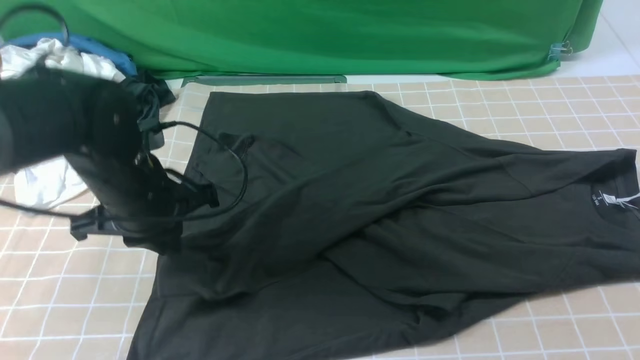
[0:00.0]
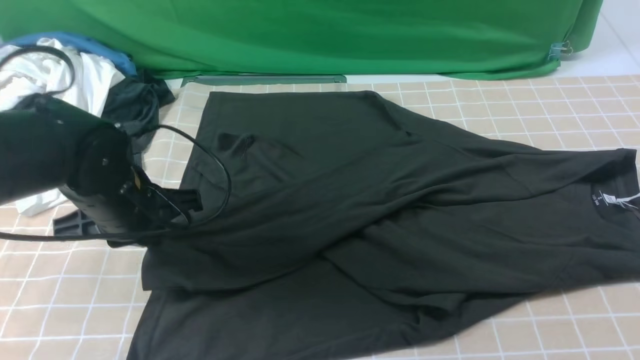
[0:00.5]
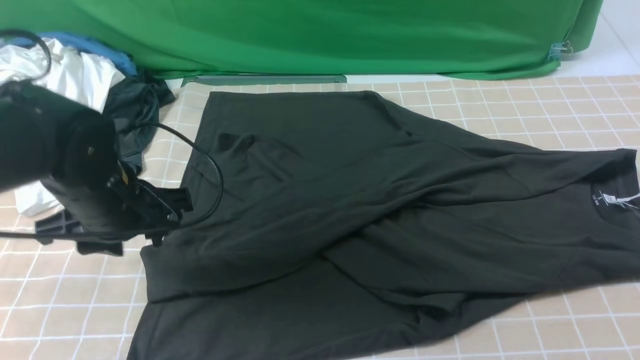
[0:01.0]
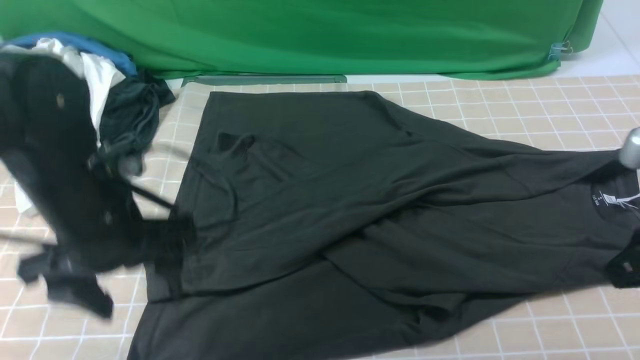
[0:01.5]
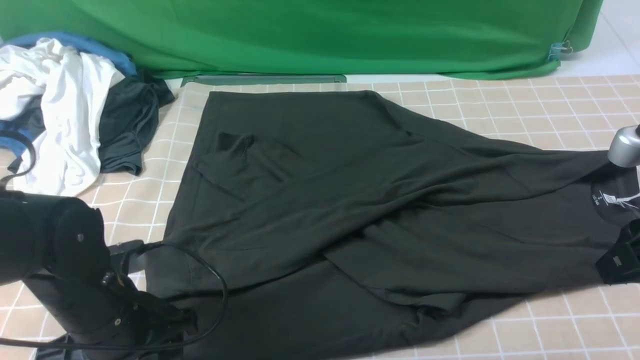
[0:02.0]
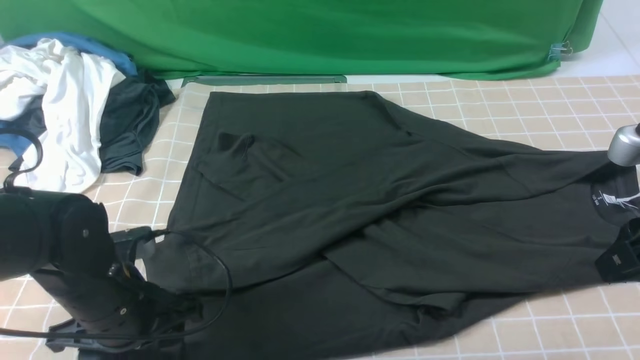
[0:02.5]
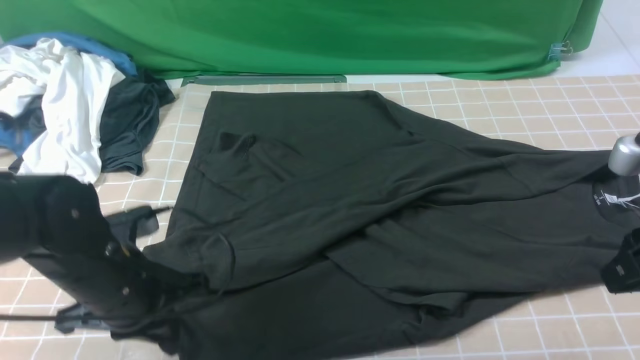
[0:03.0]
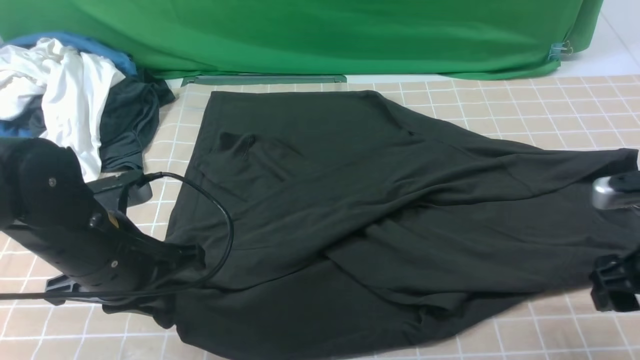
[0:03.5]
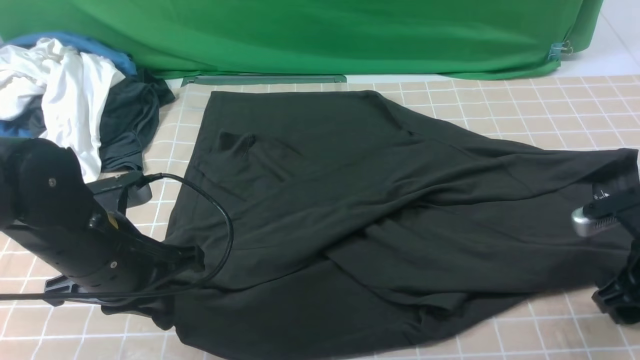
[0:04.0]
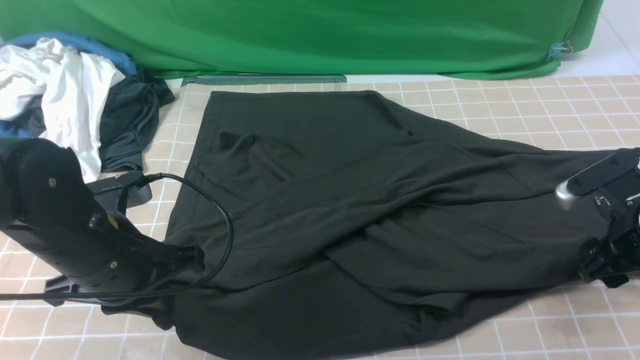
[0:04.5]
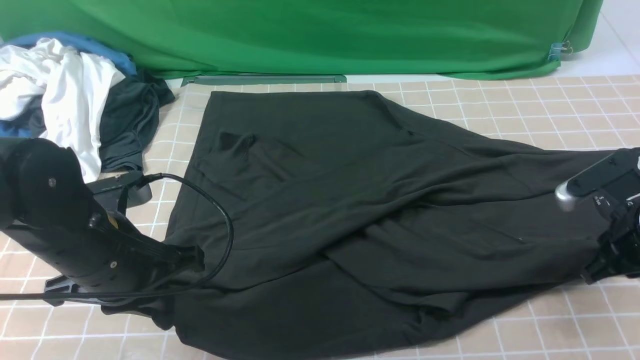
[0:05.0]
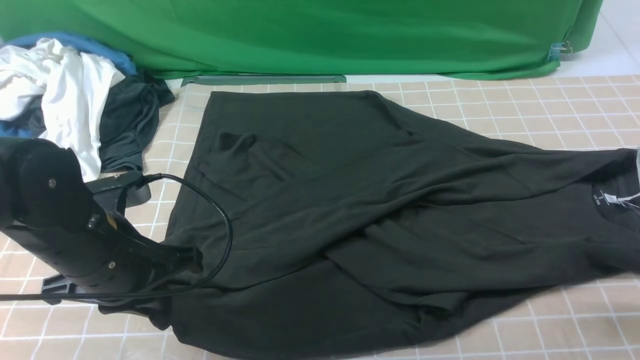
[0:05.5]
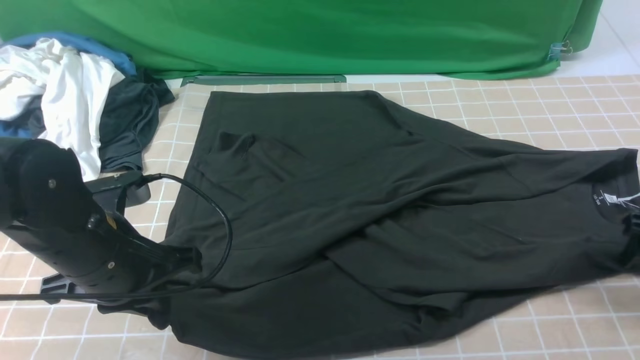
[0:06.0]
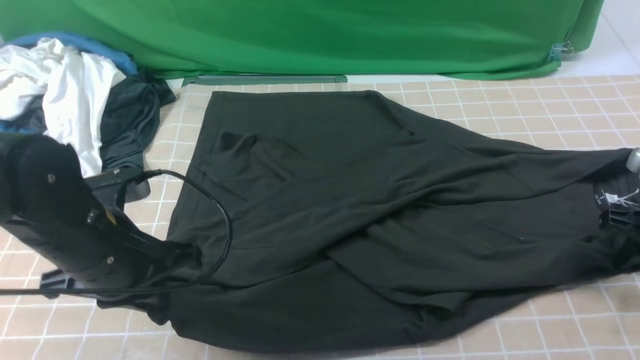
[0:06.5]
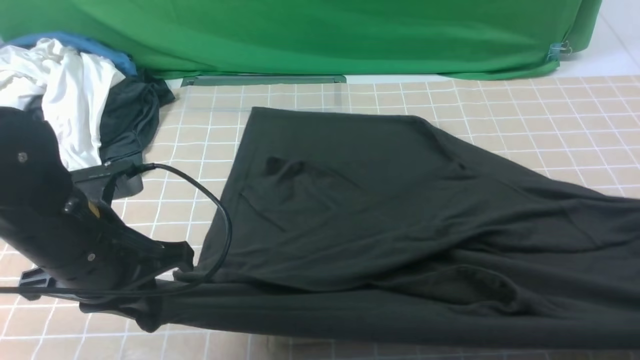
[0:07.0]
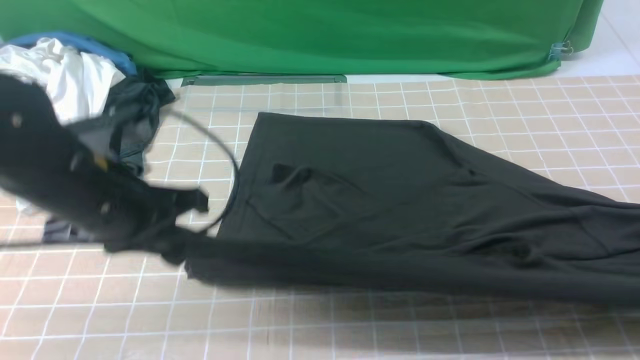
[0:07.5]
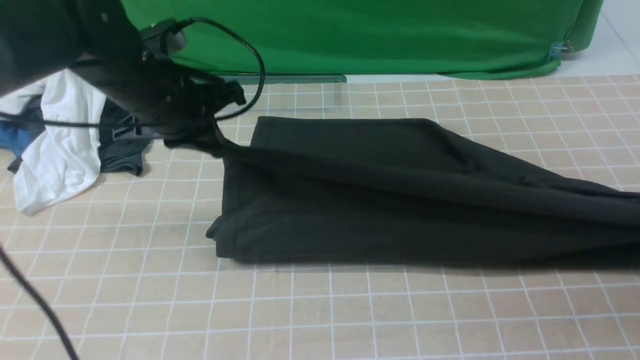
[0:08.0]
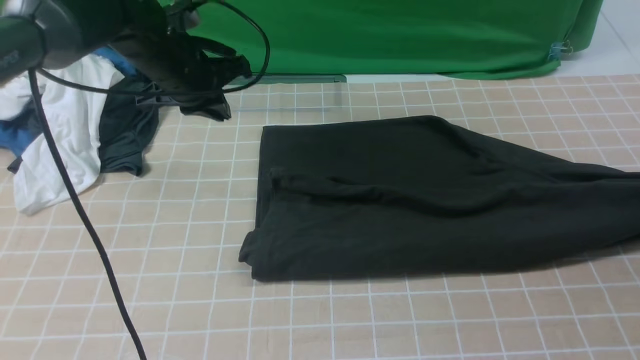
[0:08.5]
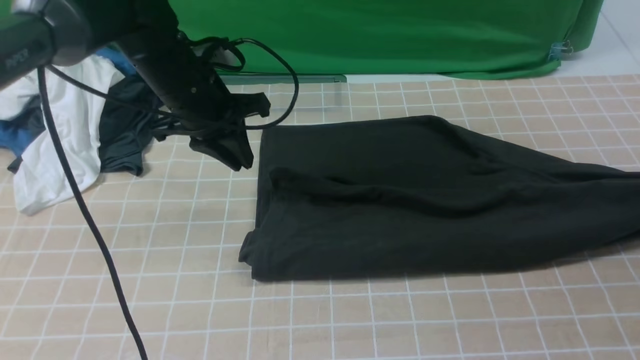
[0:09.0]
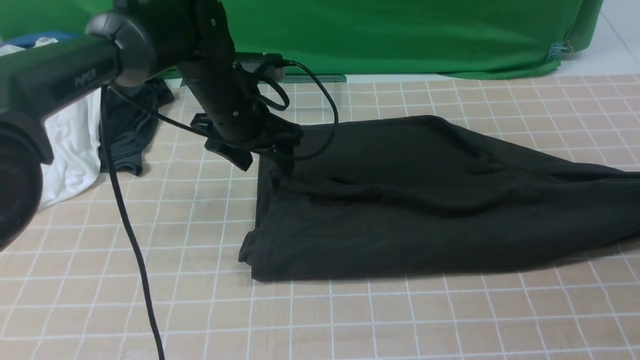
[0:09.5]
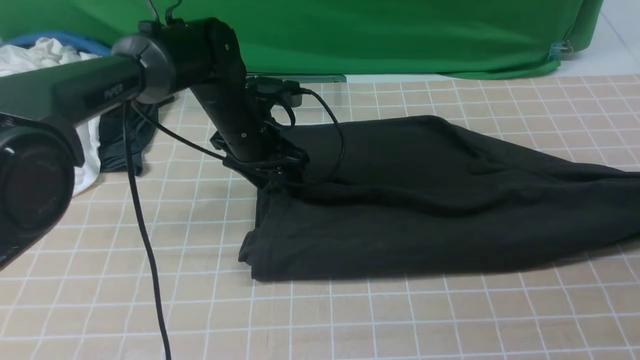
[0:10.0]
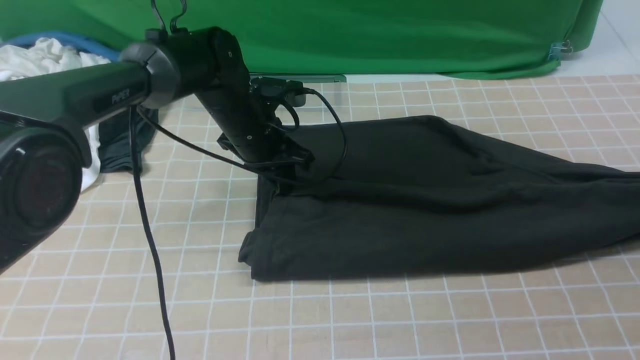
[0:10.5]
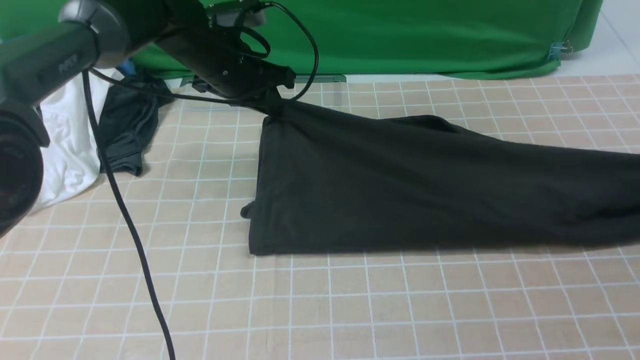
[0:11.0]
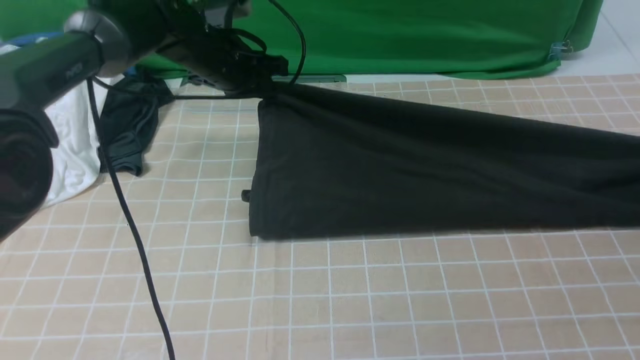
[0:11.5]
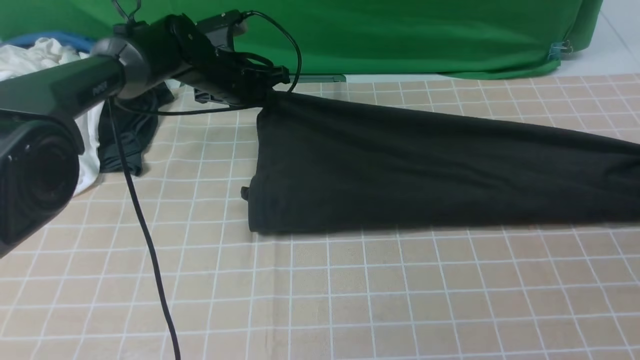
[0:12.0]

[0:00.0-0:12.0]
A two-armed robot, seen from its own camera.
Step, 0:01.0 to 0:06.0: use both arms simultaneously to clamp the lower edge of the clothing fabric.
0:00.0 to 0:02.0: The right gripper is displaced forward and downward by some 10 cm, and opens; the left gripper heads backward, covering approximately 10 cm, and opens its fingers.
0:02.0 to 0:04.0: The right gripper is displaced downward and forward by approximately 15 cm, and opens. The left gripper goes approximately 5 cm upward, and closes its fingers.
0:04.0 to 0:06.0: The right gripper goes approximately 5 cm to the right, and closes, then reopens.
0:06.0 to 0:08.0: The right gripper travels to the right and upward by about 10 cm, and closes up; the left gripper heads forward, covering about 15 cm.
0:08.0 to 0:10.0: The left gripper is displaced downward, to the right and forward by some 15 cm, and opens its fingers; the right gripper goes about 5 cm forward.
0:10.0 to 0:12.0: The left gripper shifts roughly 10 cm forward, and closes up. Meanwhile the right gripper travels downward by roughly 5 cm.

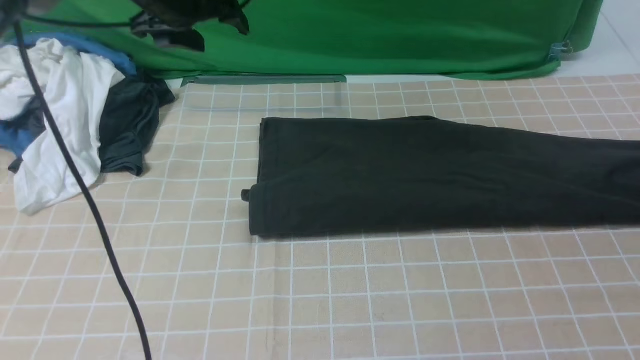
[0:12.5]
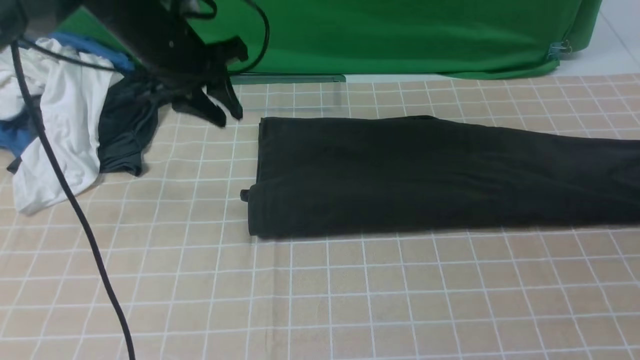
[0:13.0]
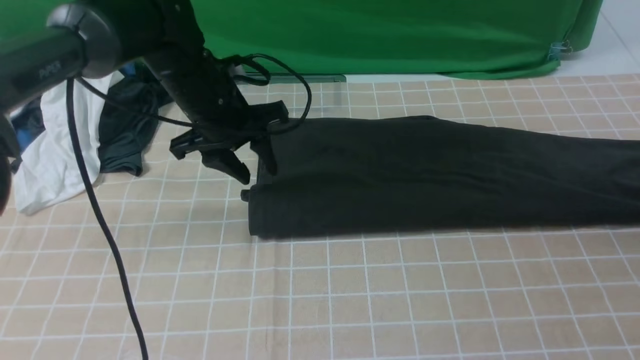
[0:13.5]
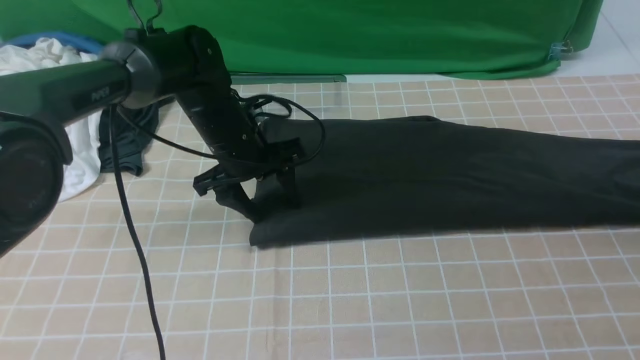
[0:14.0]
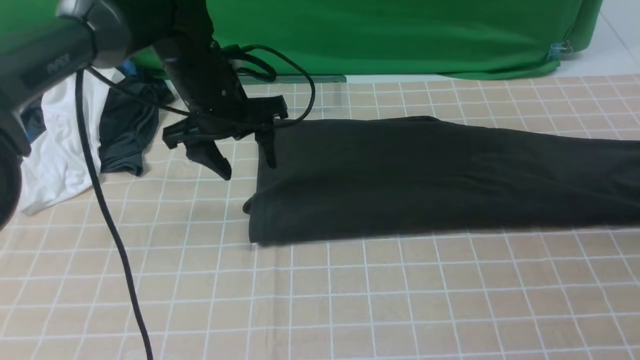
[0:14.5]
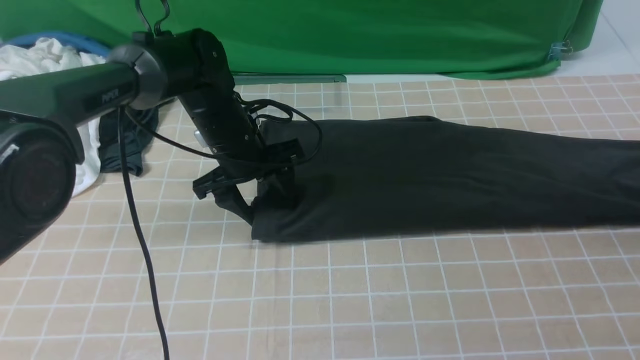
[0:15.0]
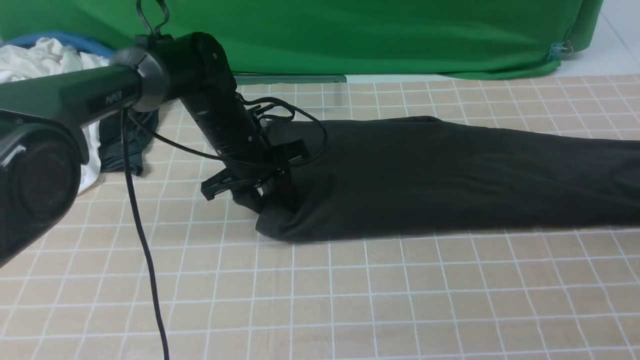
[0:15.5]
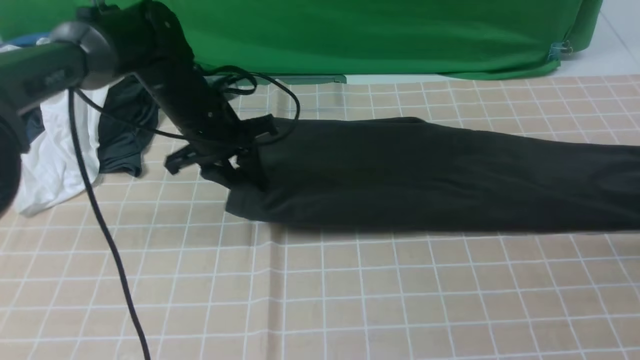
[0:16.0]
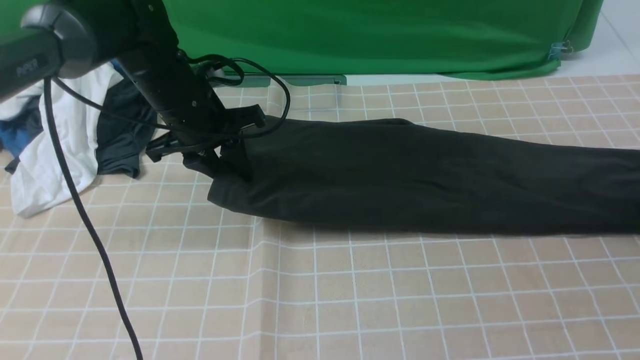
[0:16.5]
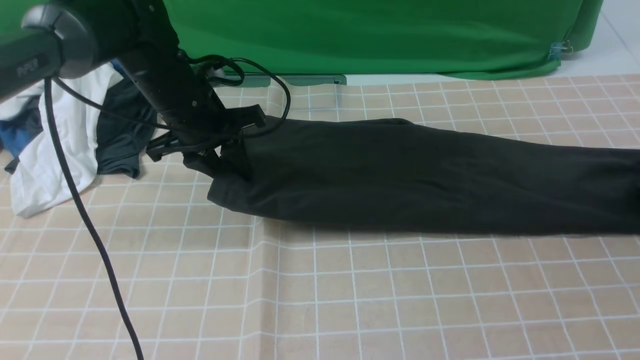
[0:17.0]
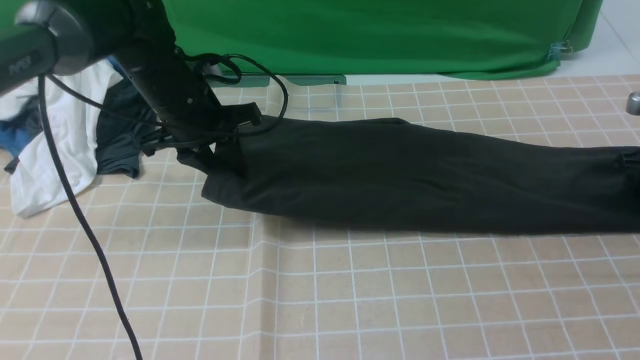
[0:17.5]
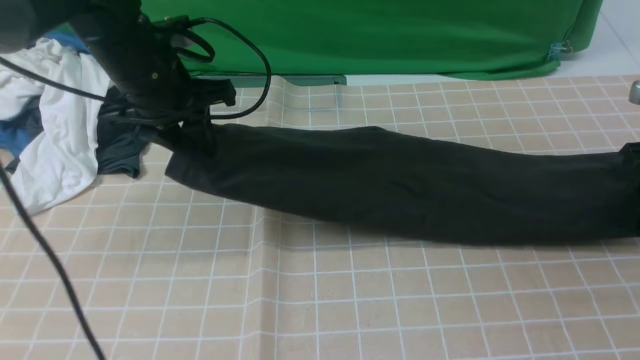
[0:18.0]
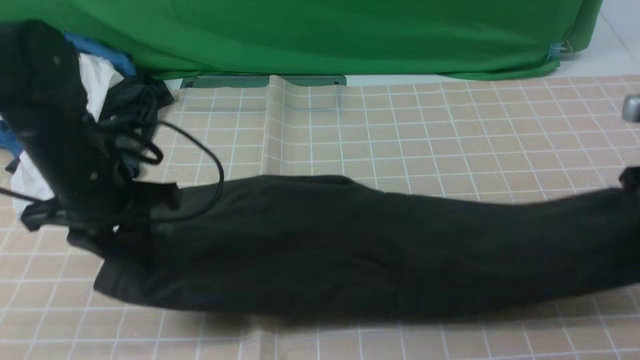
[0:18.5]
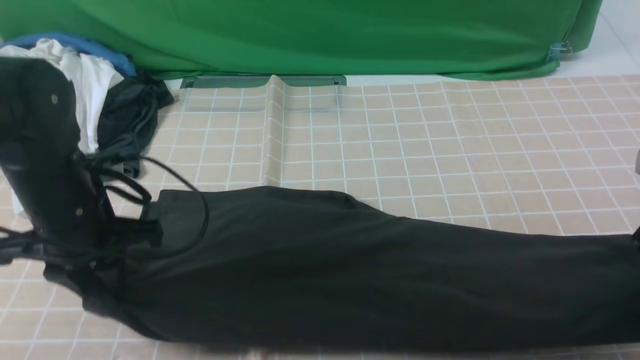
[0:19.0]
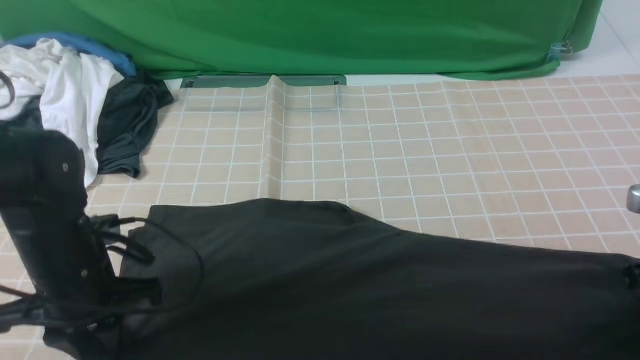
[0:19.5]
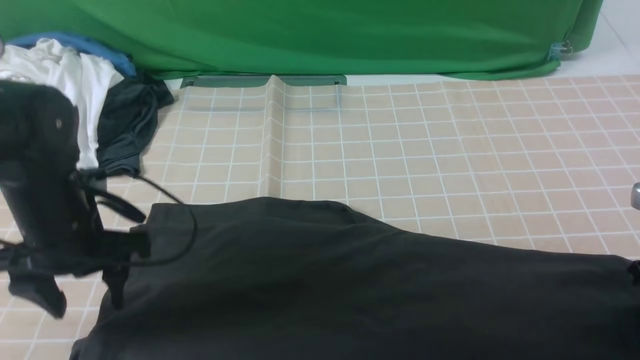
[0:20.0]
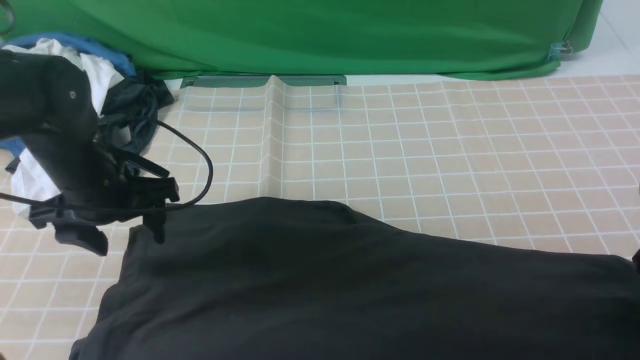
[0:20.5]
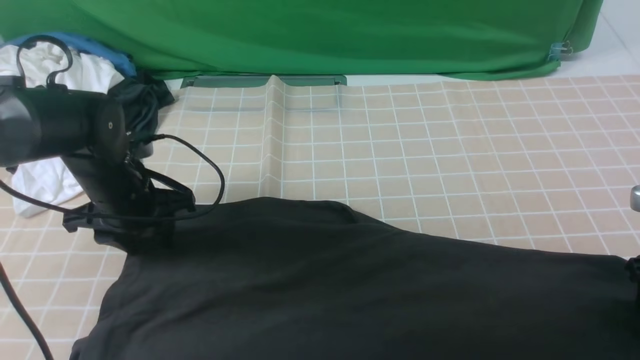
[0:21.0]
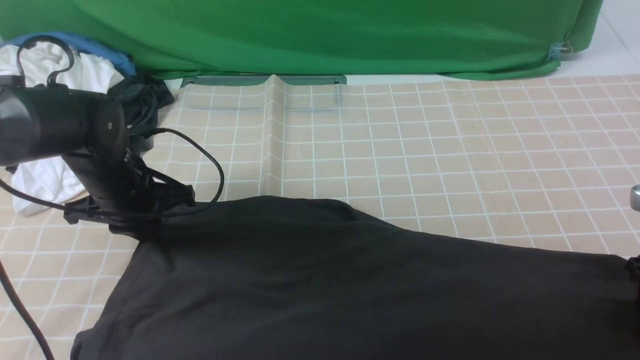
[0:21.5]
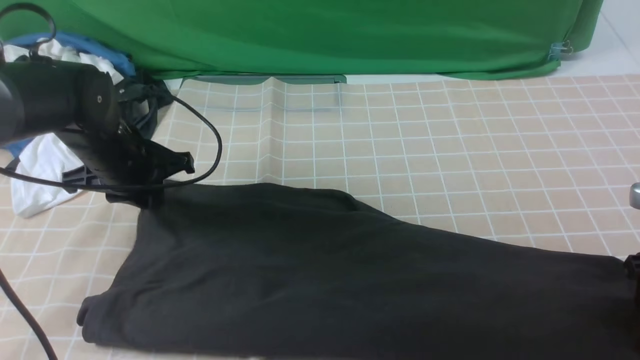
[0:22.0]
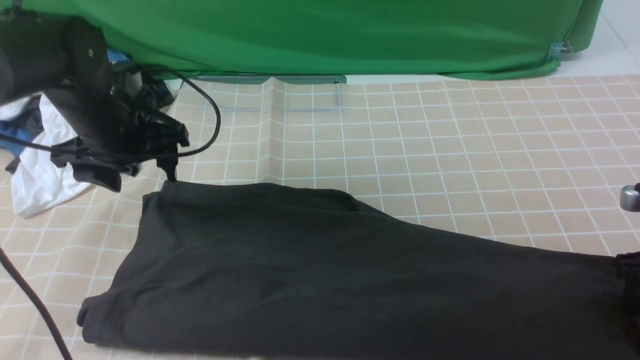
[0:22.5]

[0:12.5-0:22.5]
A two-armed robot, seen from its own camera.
0:12.5 to 0:14.5: The right gripper moves roughly 5 cm, and closes up. The left gripper is displaced downward, backward and to the right by approximately 10 cm, and closes, then opens again.
0:14.5 to 0:16.5: The right gripper travels downward by some 5 cm, and opens its fingers. The left gripper closes.
0:16.5 to 0:18.5: The right gripper shifts roughly 10 cm to the left and backward, and closes. Meanwhile the left gripper goes approximately 15 cm backward and to the left.
0:18.5 to 0:20.5: The right gripper heads backward and downward, covering roughly 10 cm, and opens its fingers, while the left gripper opens its fingers.
0:20.5 to 0:22.5: The left gripper moves forward, roughly 5 cm, and closes, then opens again.
